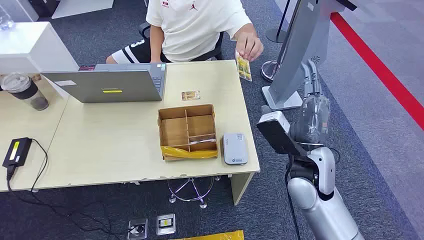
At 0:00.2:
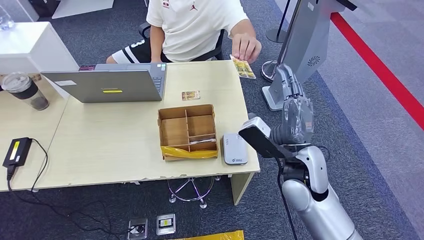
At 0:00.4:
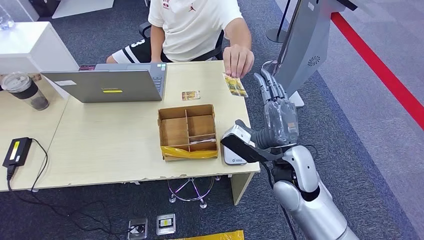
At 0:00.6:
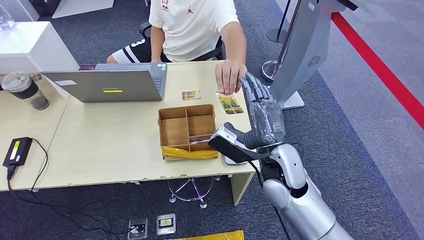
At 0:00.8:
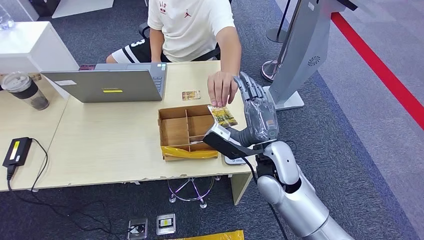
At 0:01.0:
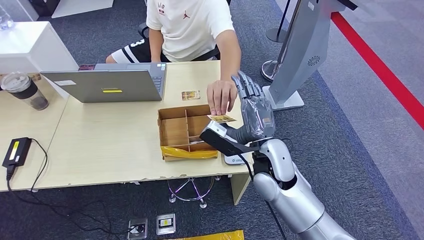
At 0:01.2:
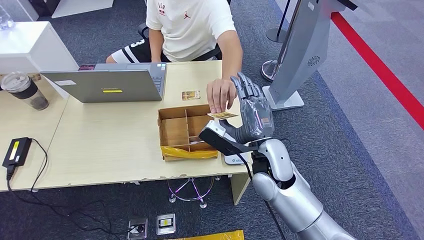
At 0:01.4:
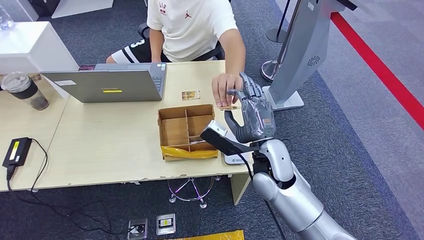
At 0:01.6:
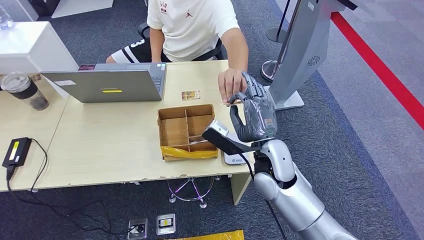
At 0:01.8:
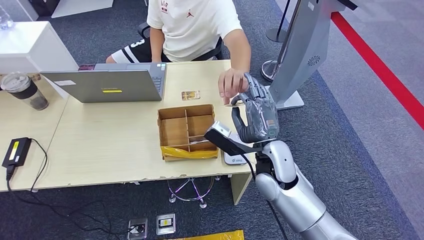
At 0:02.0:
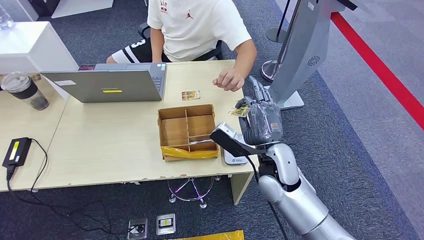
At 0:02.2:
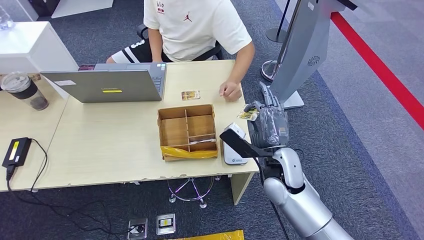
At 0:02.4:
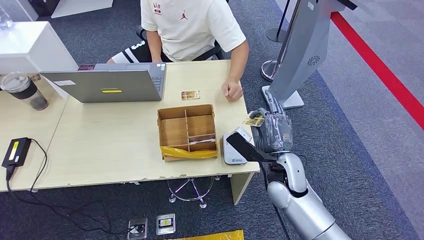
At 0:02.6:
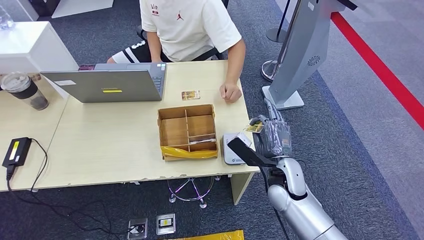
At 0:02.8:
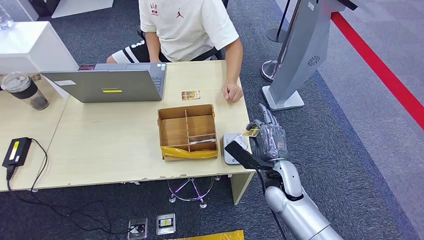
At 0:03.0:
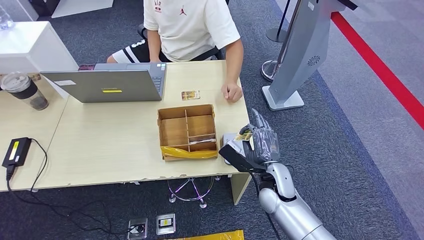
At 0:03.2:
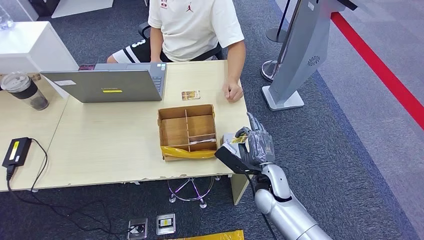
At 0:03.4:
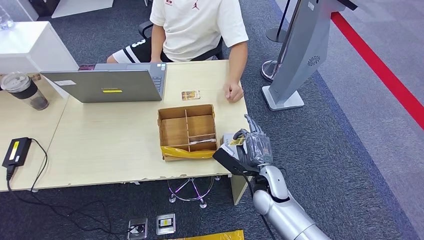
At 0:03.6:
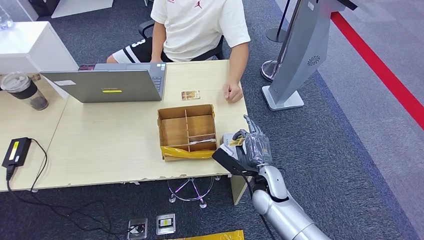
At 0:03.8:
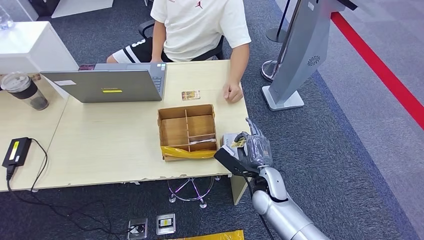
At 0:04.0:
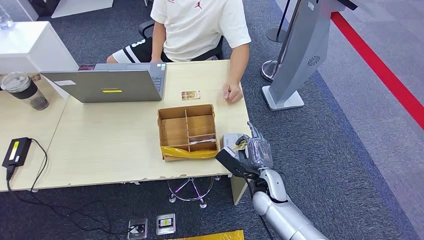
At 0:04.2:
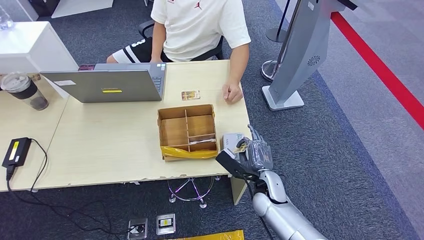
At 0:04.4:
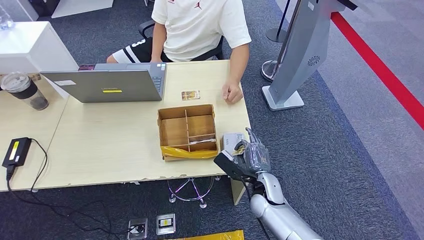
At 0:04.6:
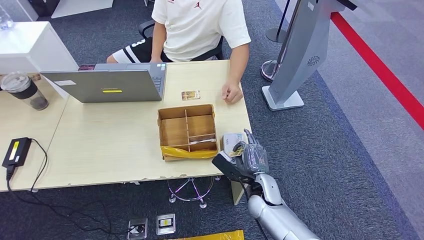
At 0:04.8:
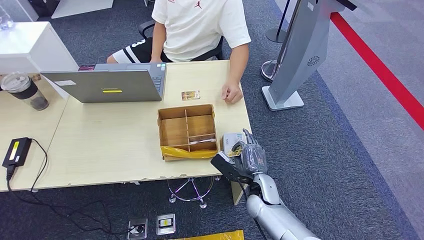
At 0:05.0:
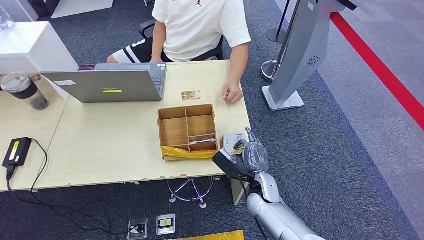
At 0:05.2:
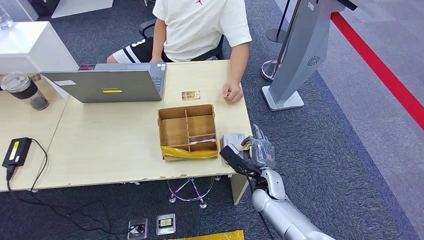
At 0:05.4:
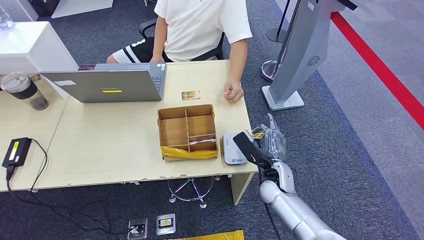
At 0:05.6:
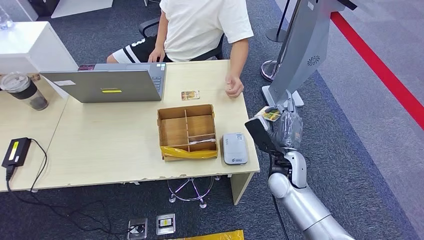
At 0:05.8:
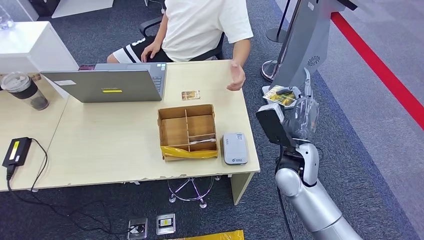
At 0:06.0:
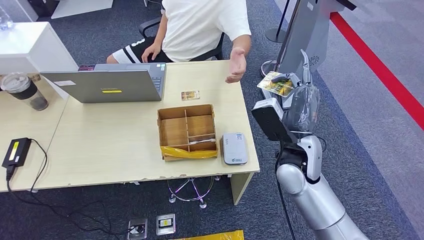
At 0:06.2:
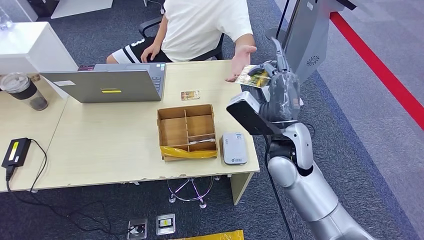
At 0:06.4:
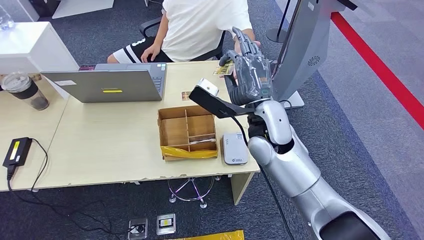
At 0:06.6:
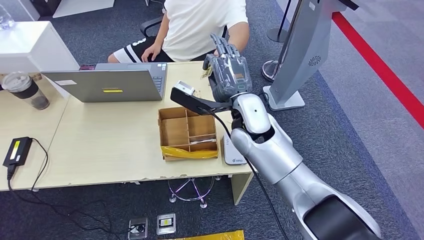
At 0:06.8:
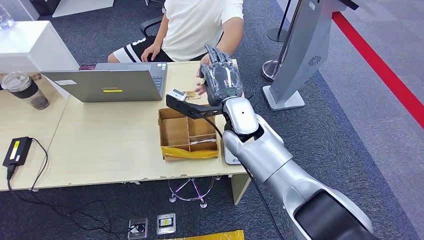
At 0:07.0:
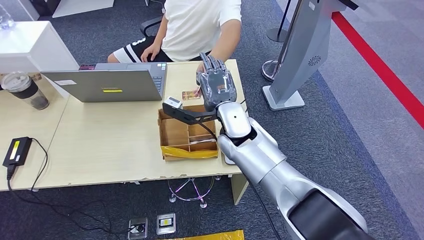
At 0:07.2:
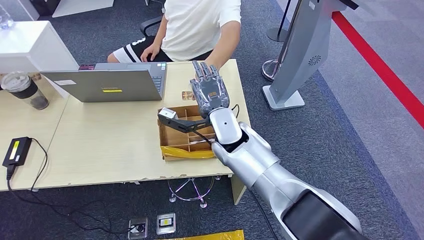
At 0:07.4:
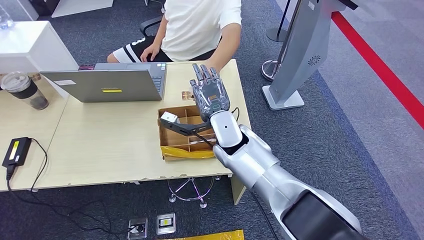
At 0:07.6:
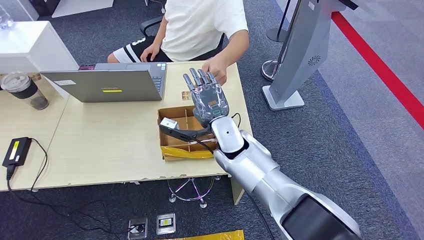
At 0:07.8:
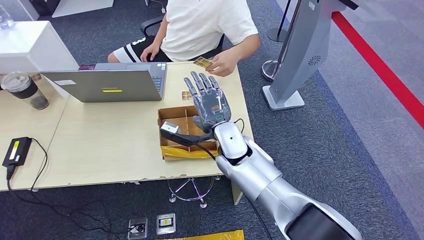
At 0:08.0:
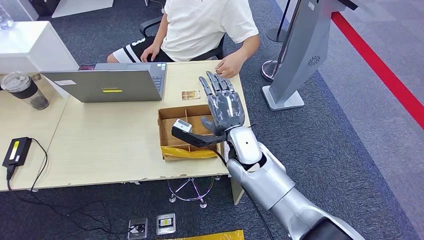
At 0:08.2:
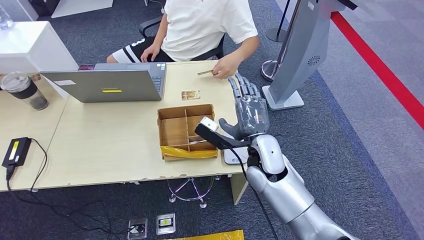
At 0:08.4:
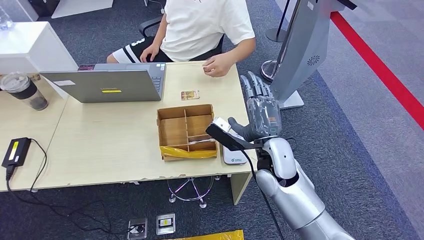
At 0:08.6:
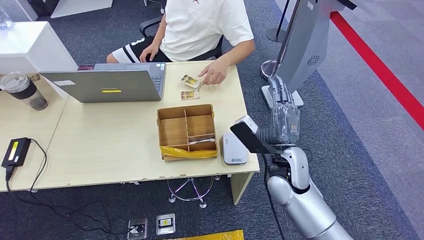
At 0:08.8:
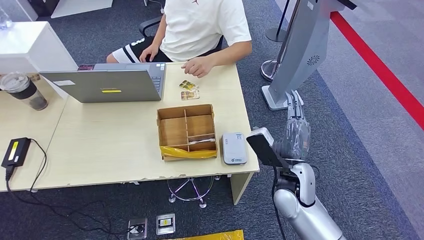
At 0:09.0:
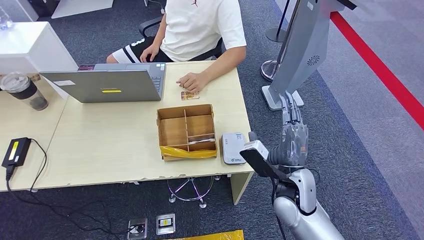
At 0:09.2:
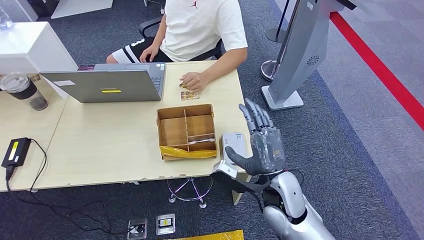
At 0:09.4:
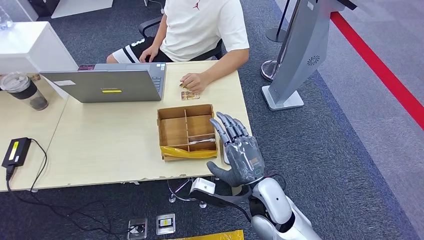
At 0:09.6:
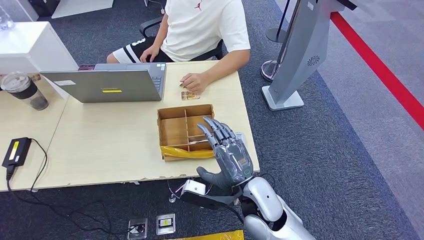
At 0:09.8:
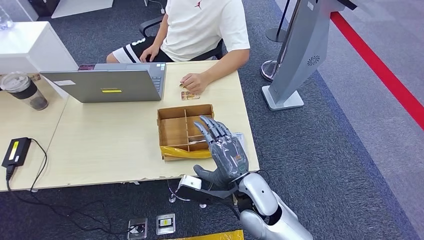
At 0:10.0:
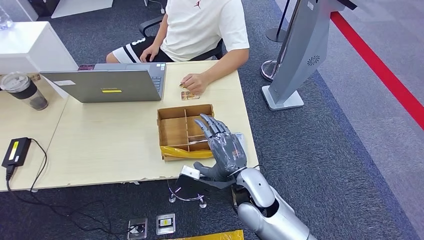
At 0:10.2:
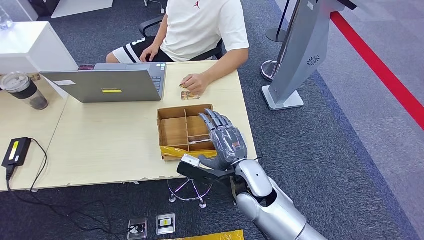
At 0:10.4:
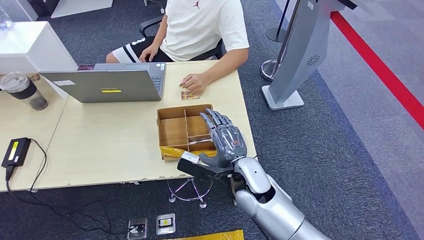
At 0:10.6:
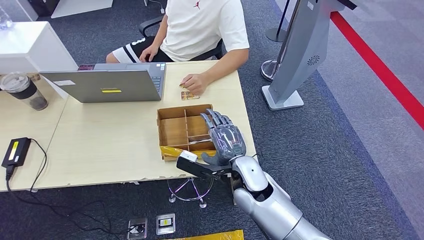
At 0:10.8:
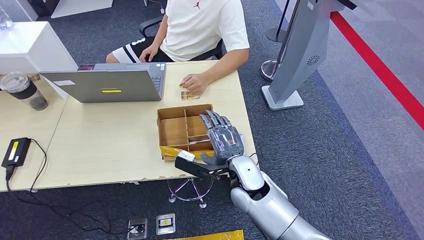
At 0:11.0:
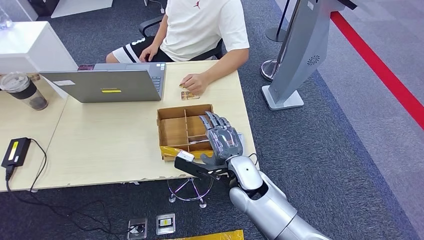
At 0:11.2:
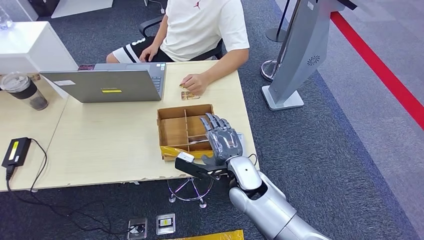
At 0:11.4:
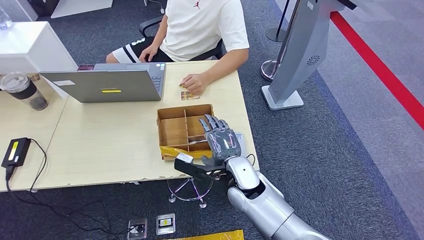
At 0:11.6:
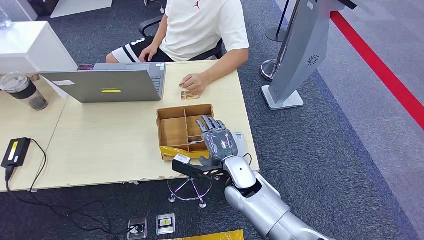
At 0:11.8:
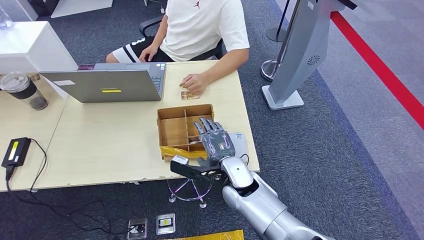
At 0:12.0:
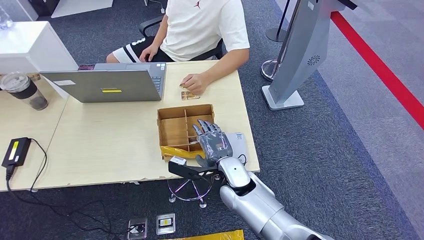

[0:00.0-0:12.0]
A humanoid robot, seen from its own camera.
Step, 0:00.0 to 0:01.8: Take the ID card from the person's hand.
Step, 0:02.8 to 0:05.0: Place the ID card on the card reader.
Step, 0:05.6 to 0:07.4: Hand the ID card to the person.
0:01.6 to 0:03.0: The right hand travels downward by about 10 cm.
0:03.0 to 0:04.4: The right hand moves downward, some 5 cm.
0:04.4 to 0:06.0: The right hand is displaced upward by some 20 cm.
0:06.0 to 0:07.6: The right hand moves to the left and forward, approximately 15 cm.
0:07.6 to 0:09.0: The right hand heads to the right and backward, covering some 20 cm.
0:09.0 to 0:10.4: The right hand shifts about 10 cm to the left.
0:10.4 to 0:12.0: The right hand shifts by about 5 cm.

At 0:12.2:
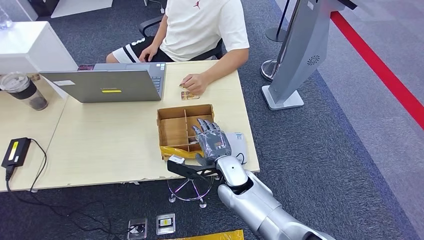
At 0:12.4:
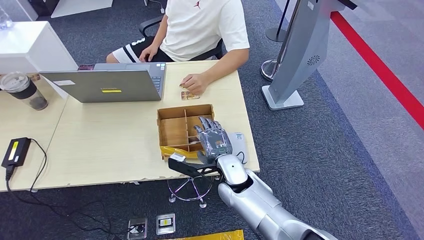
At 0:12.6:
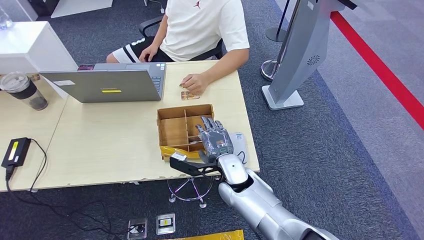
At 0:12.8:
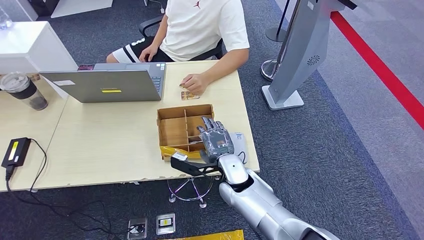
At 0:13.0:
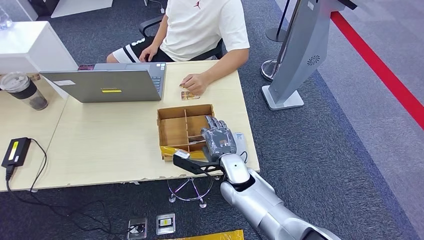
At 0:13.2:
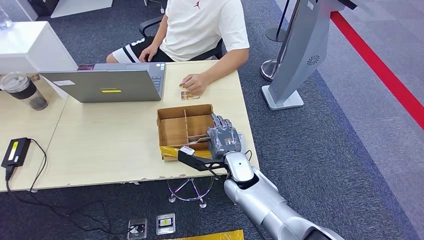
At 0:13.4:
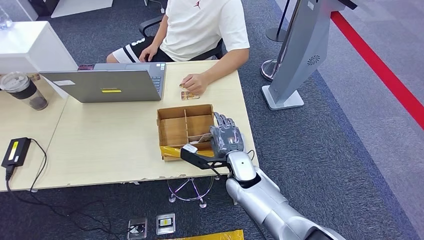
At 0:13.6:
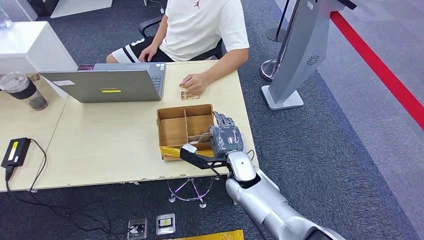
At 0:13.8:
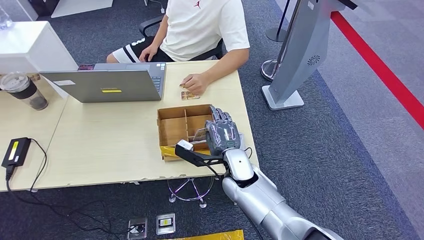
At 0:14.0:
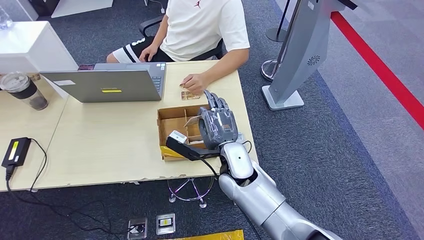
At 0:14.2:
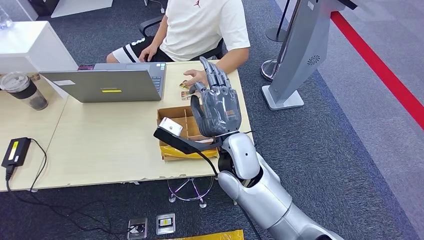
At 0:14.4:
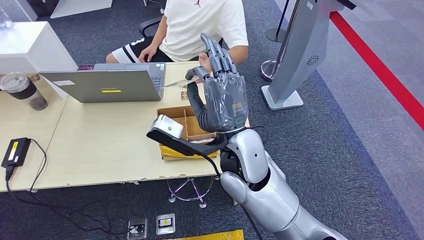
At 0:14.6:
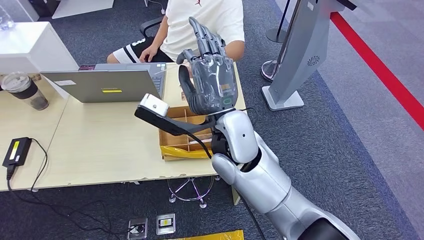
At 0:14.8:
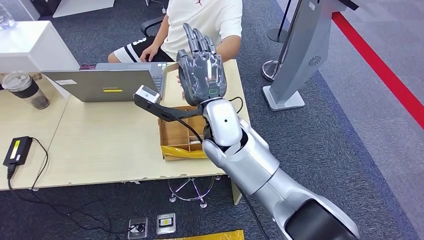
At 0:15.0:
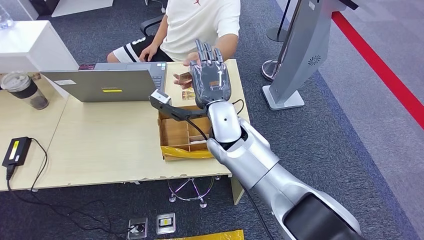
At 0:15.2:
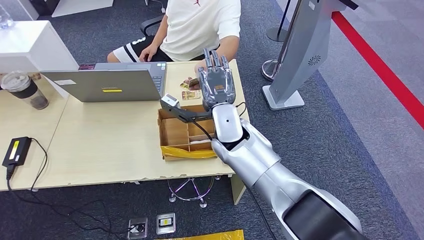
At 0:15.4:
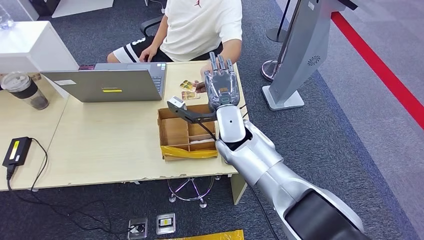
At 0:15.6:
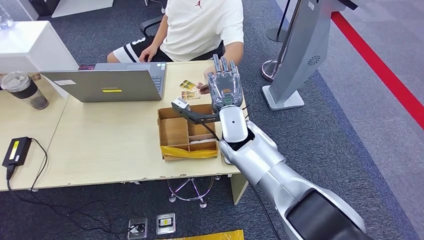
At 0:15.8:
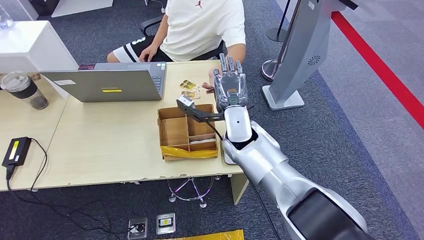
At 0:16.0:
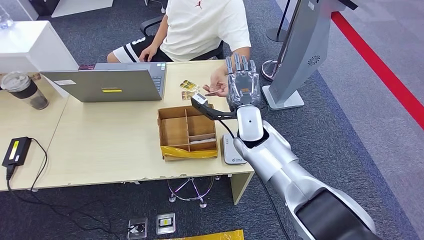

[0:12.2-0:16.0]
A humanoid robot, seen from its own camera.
Step, 0:13.0 to 0:14.6: Pick up the room key from the key card box.
Step, 0:14.8 to 0:16.0: Hand the room key to the person.
0:12.2 to 0:13.4: The hands stay close to where they were, moving slightly.
0:13.4 to 0:14.8: The right hand moves upward, some 20 cm.
0:14.8 to 0:16.0: The right hand moves to the right, downward and forward, about 15 cm.
